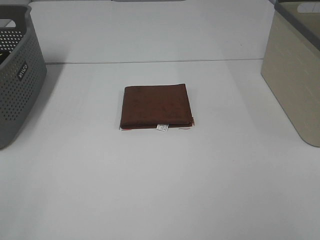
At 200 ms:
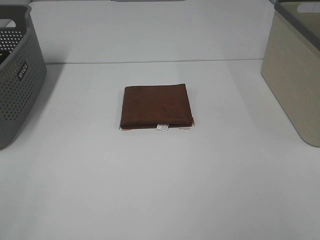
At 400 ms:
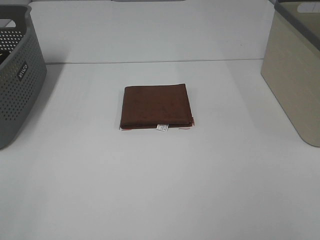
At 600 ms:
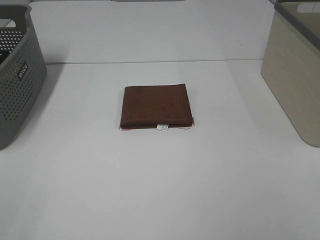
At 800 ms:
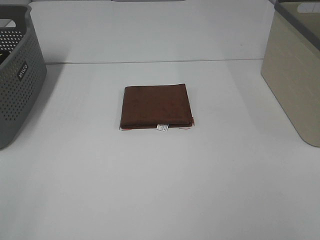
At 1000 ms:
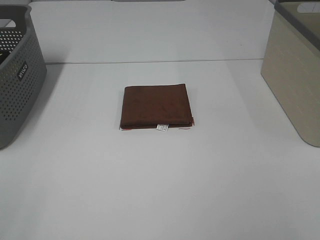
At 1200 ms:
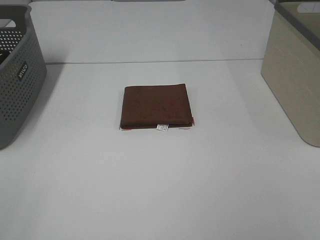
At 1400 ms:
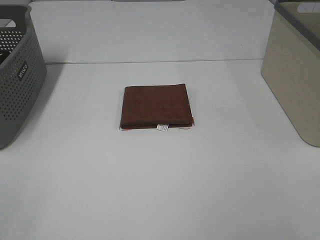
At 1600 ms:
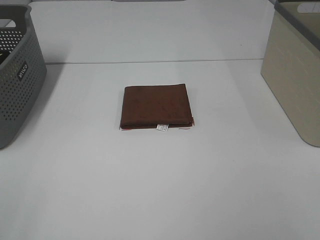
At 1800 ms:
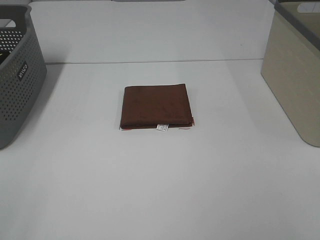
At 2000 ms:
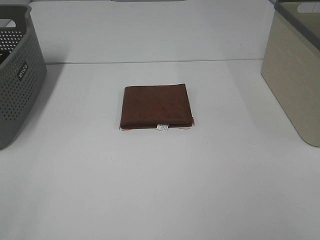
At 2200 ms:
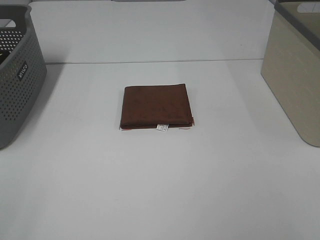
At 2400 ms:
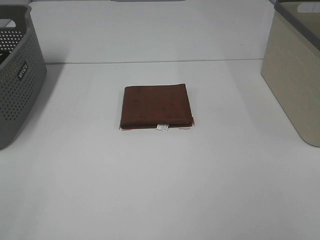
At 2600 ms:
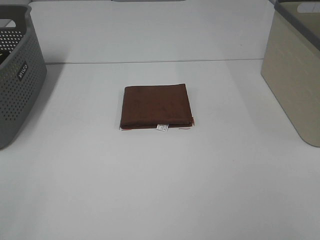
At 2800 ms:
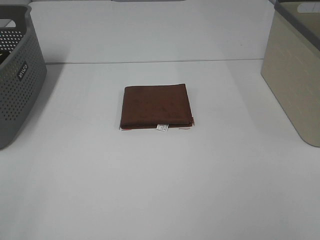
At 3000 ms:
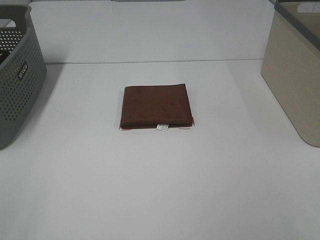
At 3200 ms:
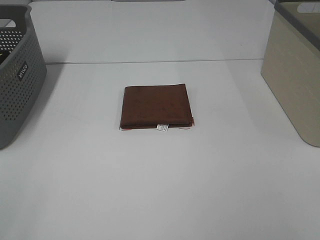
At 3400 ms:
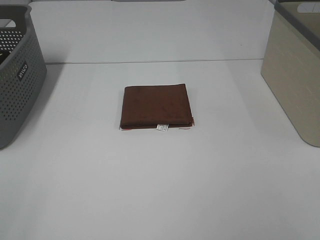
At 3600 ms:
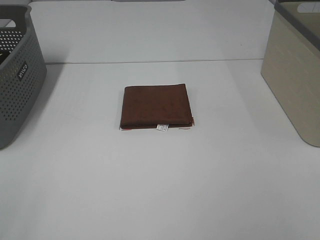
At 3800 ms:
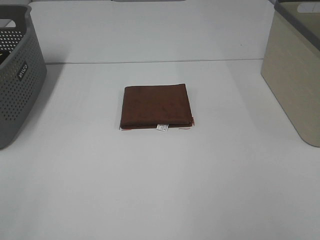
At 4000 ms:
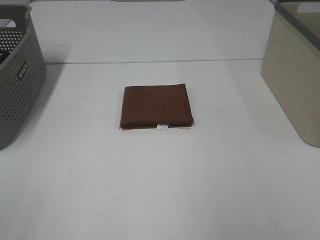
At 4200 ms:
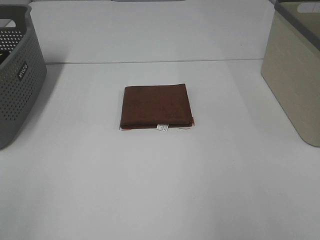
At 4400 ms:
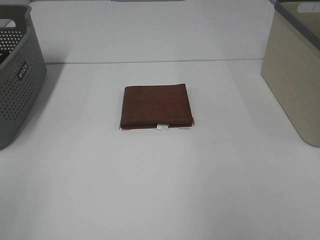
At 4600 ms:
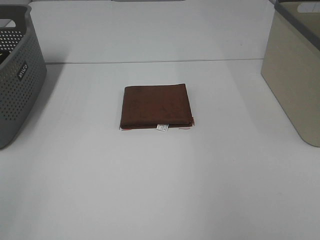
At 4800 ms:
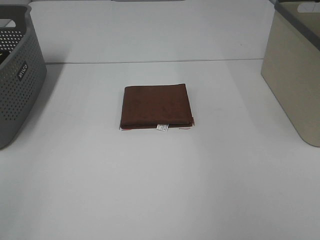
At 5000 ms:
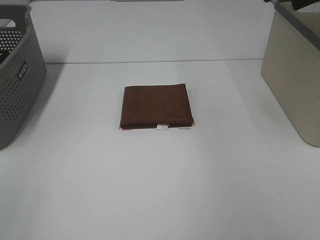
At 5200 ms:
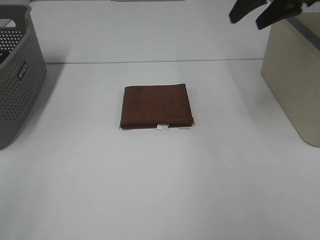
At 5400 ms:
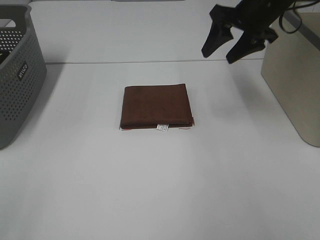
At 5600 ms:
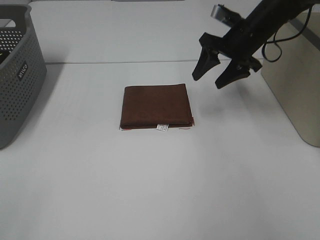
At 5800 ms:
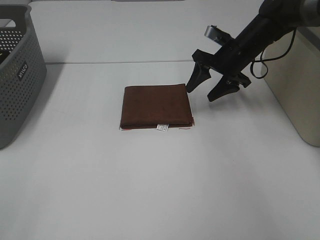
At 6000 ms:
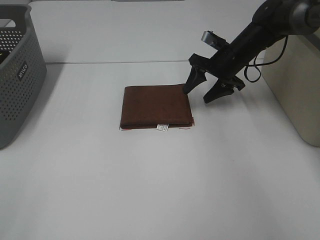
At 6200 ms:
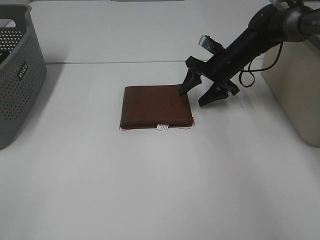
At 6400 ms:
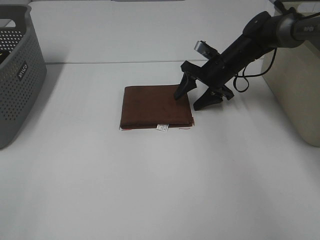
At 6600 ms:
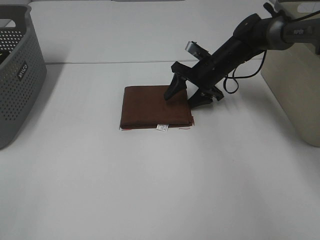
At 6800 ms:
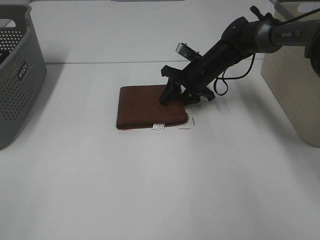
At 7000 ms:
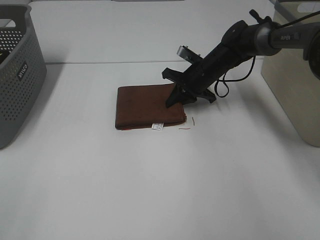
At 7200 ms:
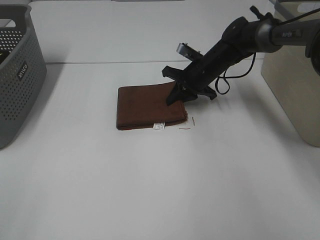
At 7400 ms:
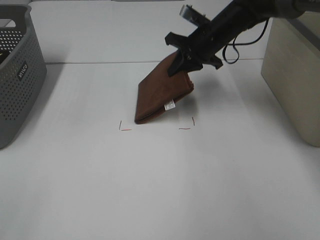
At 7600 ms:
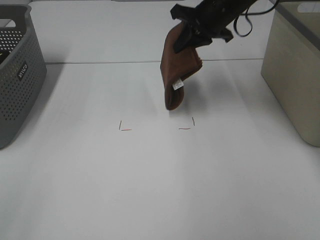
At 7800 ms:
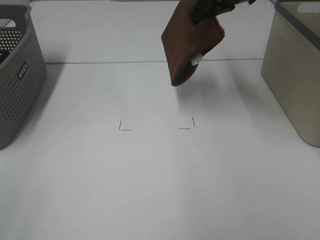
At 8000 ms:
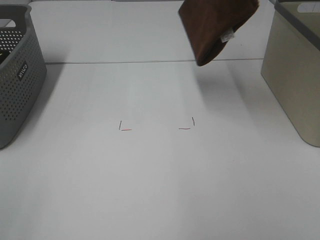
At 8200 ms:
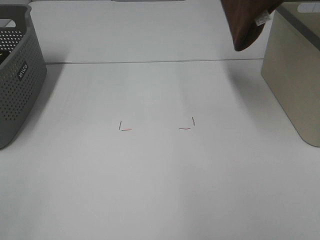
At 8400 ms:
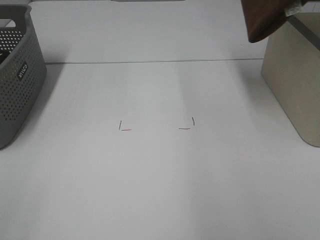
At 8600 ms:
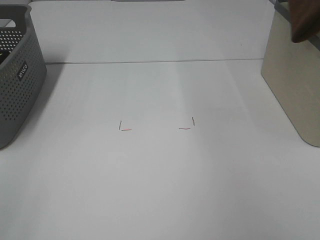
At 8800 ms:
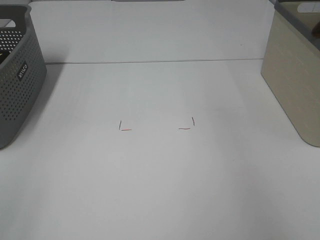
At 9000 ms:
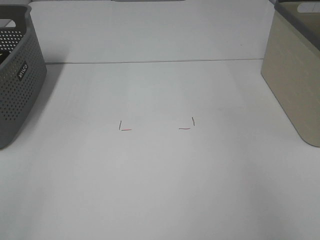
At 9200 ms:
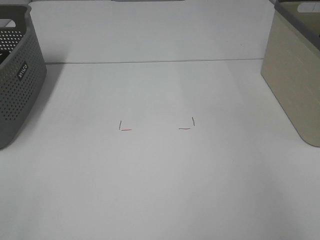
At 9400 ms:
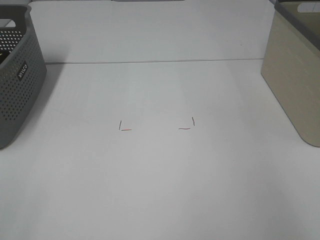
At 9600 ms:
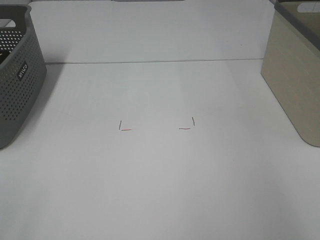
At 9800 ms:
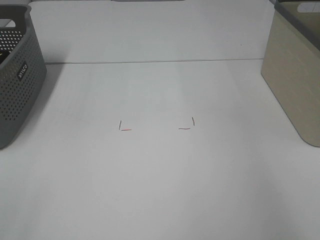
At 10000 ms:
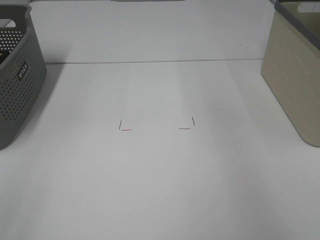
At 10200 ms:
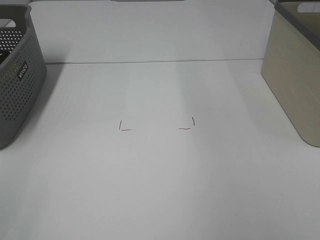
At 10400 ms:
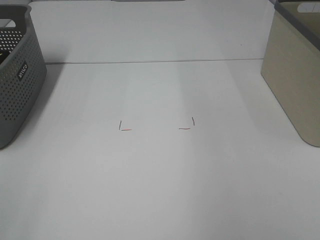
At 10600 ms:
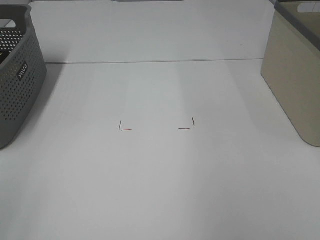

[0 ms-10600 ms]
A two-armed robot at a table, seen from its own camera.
Step, 0 ms to 7000 ms: Right hand: grab the folded brown towel.
Step, 7200 ms to 9600 ms: Right hand: place the brown towel in right basket.
0 ms to 3000 ms: Both grippers stay put.
4600 ms to 6000 ms: The right gripper is displaced downward, forward and to the left by roughly 35 cm.
6000 ms to 7600 ms: The right gripper is displaced upward by about 15 cm, and closes its fingers.
7600 ms to 9000 ms: The right gripper heads to the right and upward, covering some 30 cm.

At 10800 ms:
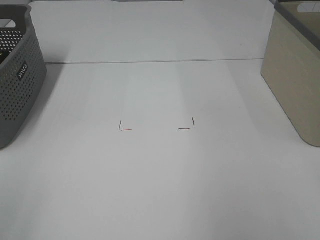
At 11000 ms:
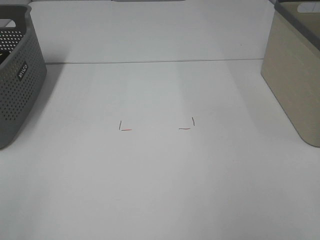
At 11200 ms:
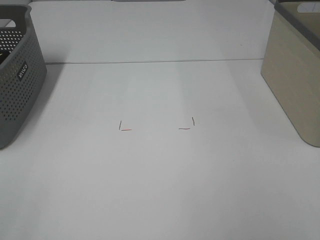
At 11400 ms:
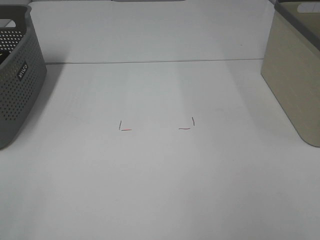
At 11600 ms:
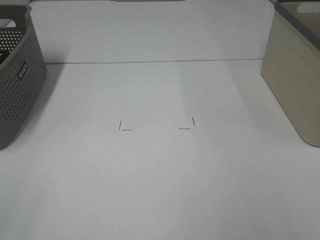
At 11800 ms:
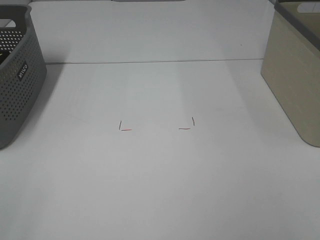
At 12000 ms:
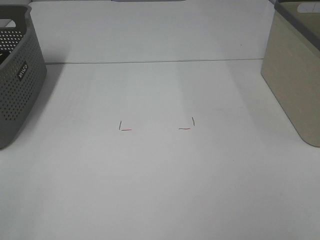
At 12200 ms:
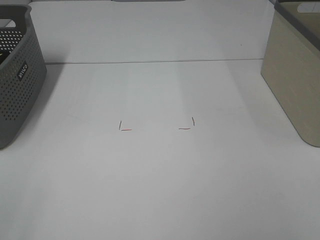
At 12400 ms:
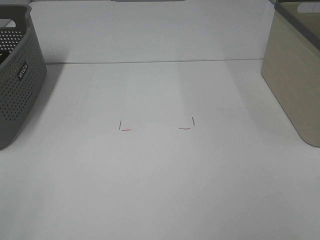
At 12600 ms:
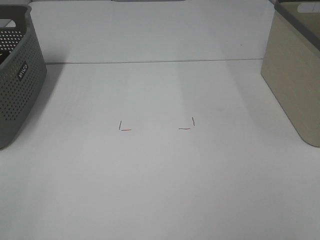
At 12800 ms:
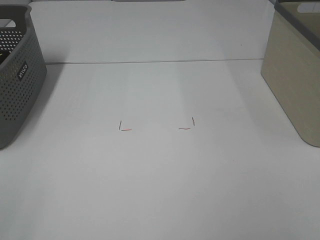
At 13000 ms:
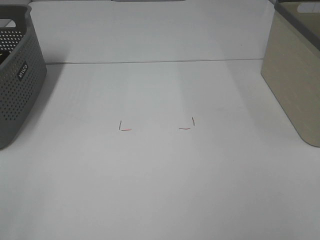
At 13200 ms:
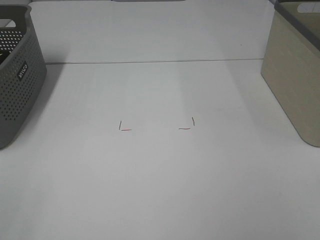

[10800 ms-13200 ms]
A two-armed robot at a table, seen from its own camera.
12000 ms to 13200 ms: The two grippers keep their place.

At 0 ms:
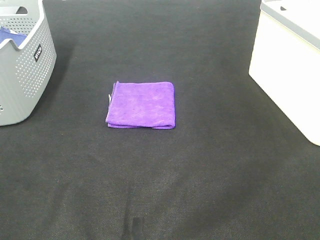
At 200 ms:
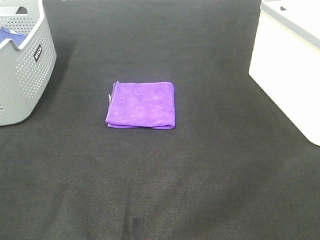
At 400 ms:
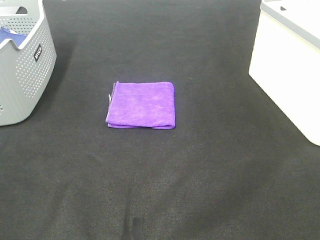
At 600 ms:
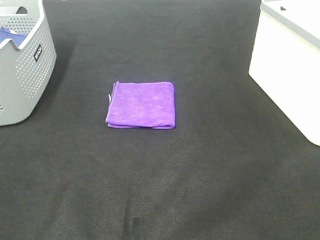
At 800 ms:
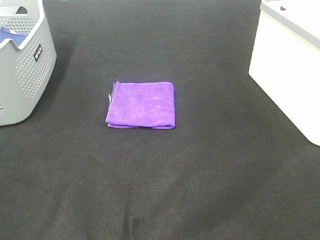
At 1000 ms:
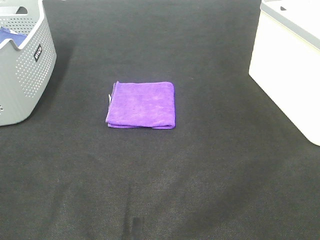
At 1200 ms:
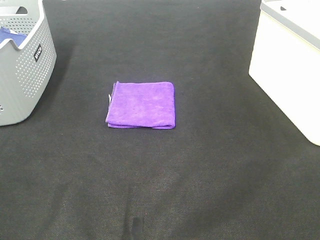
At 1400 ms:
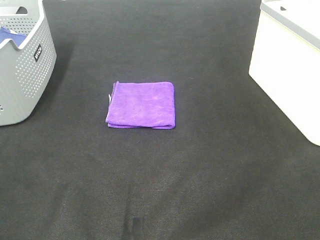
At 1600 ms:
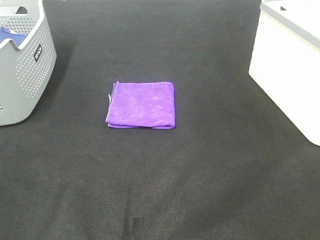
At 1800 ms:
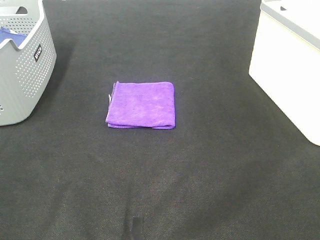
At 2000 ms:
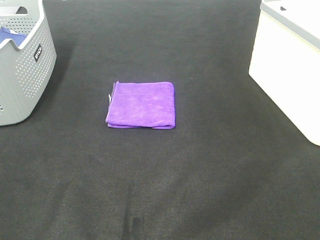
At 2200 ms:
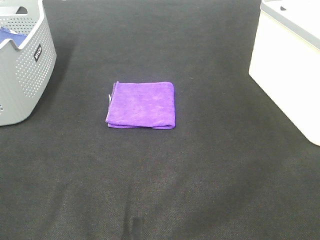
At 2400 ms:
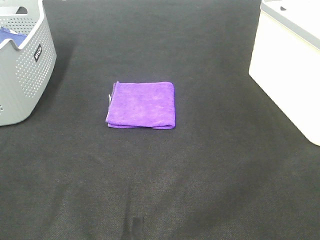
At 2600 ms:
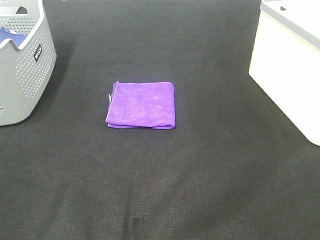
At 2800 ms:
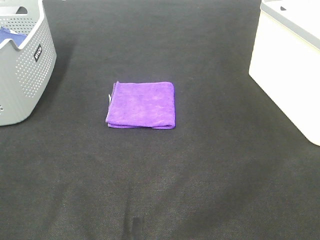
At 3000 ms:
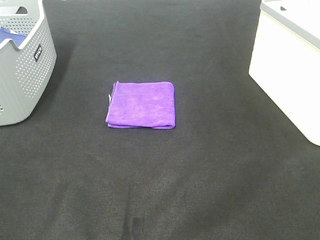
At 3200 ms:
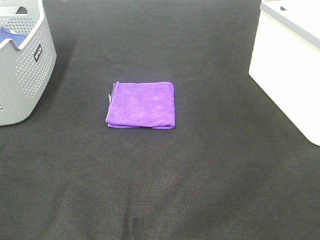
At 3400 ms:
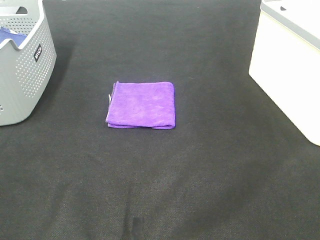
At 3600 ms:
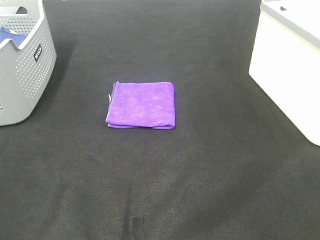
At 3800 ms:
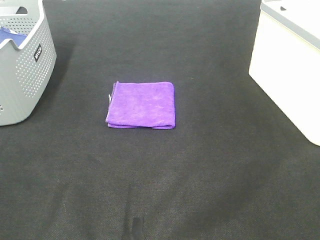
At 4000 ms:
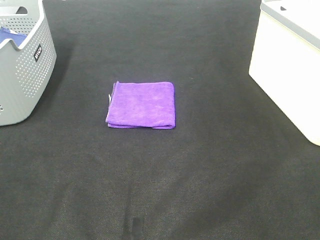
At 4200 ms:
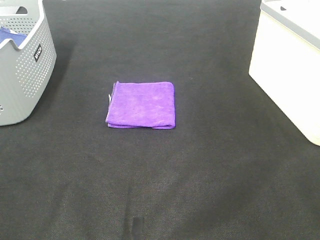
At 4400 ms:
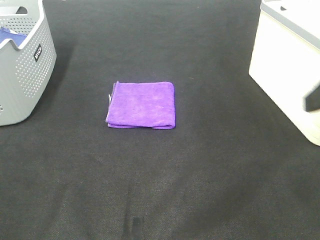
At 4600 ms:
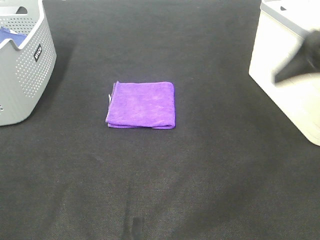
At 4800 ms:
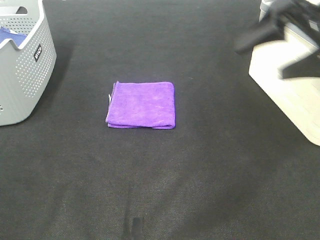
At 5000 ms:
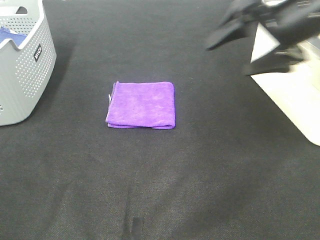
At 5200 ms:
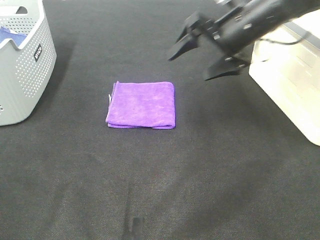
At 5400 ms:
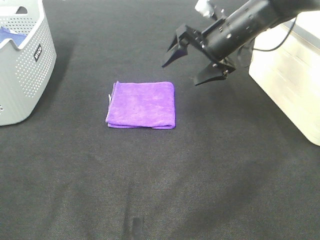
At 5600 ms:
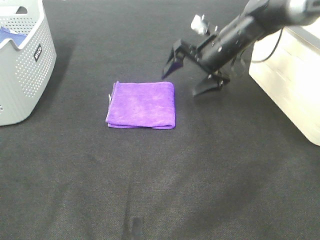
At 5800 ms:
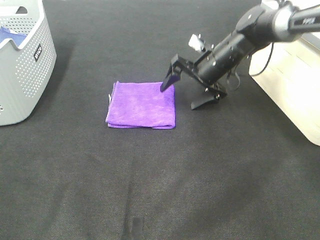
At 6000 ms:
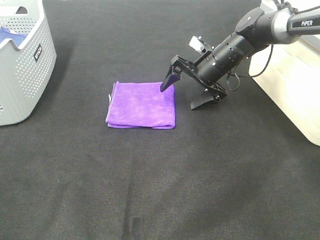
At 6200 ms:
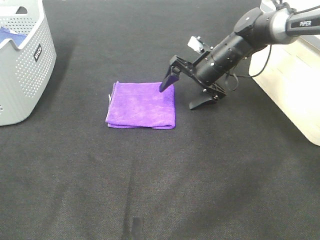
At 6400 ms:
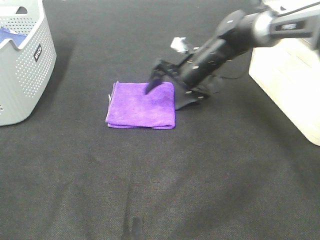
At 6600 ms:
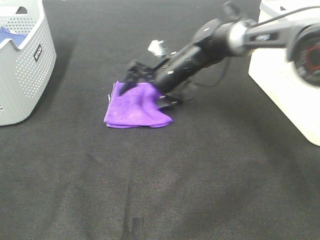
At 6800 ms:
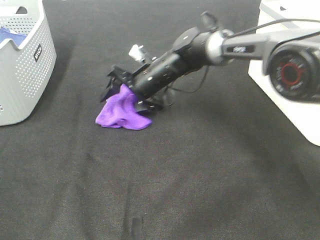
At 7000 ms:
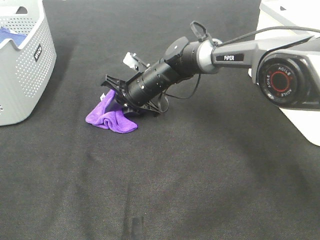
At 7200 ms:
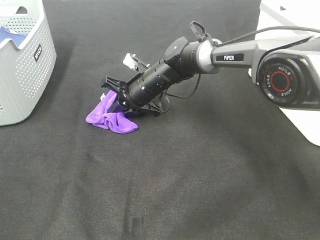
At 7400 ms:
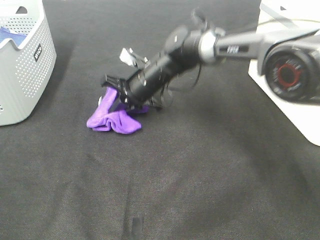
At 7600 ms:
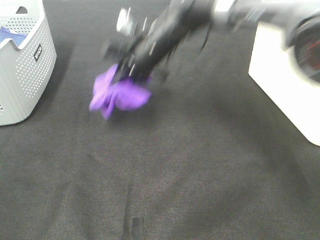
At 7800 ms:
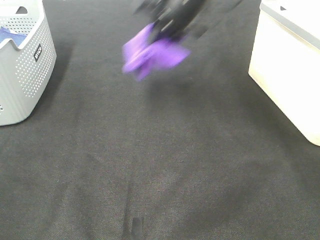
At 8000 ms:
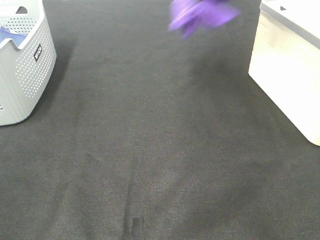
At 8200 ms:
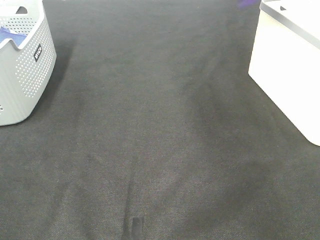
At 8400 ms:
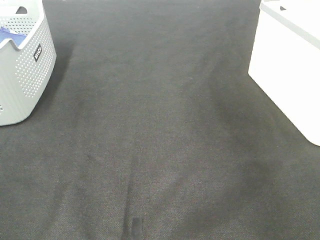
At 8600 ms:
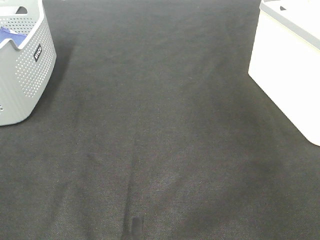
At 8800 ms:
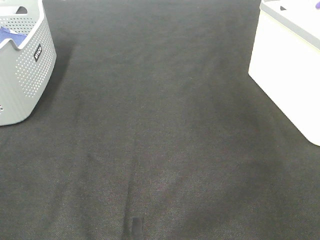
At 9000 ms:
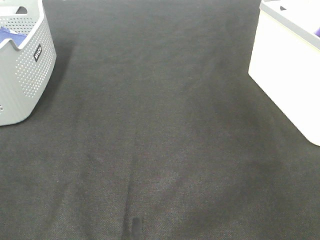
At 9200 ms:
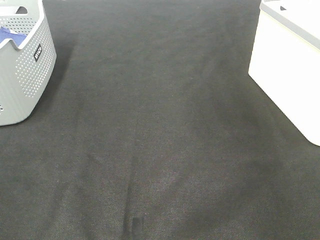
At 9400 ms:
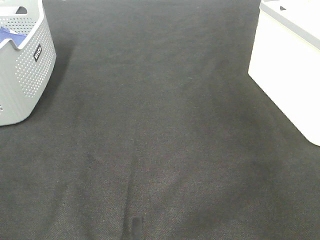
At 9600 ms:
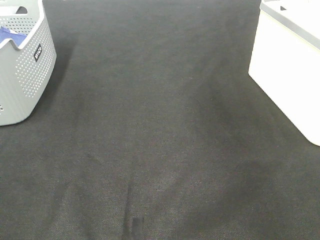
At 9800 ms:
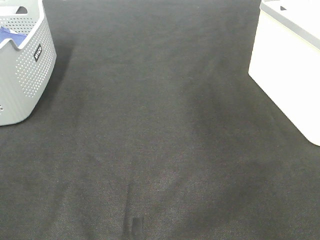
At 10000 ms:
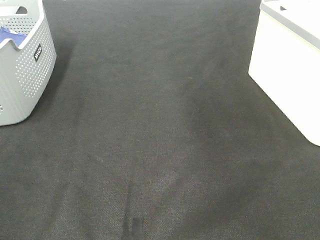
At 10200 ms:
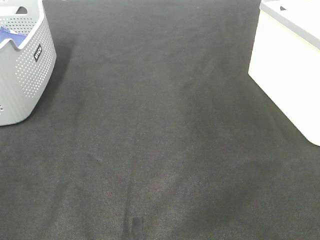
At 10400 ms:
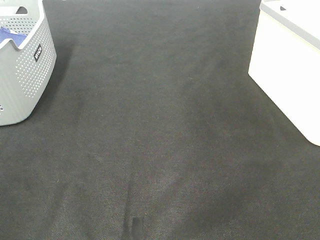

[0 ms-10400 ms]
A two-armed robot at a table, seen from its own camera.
Step, 0 ms to 7000 ms: Right hand: grab the folded purple towel.
Step, 7200 ms to 9200 ms: Right hand: place the purple towel in right basket.
0 ms to 3000 ms: Both grippers stay put.
4400 ms to 6000 ms: The right gripper shifts about 40 cm forward, downward and to the left.
6000 ms to 7400 ms: The right gripper is displaced to the left by about 15 cm, and closes its fingers.
7400 ms to 9000 ms: The right gripper goes some 50 cm to the right and upward, and opens.
